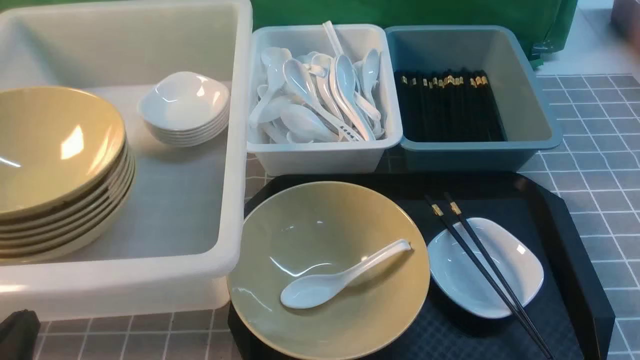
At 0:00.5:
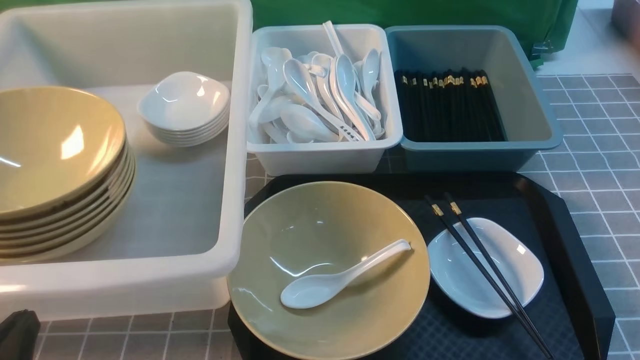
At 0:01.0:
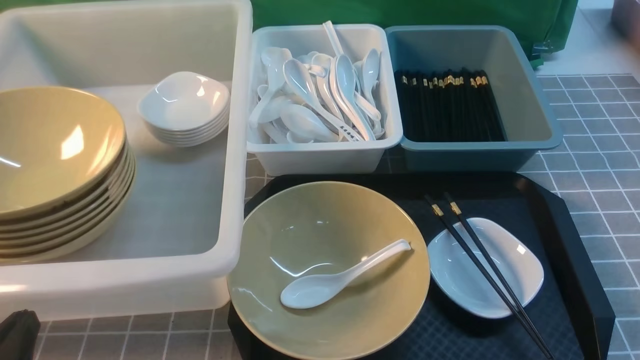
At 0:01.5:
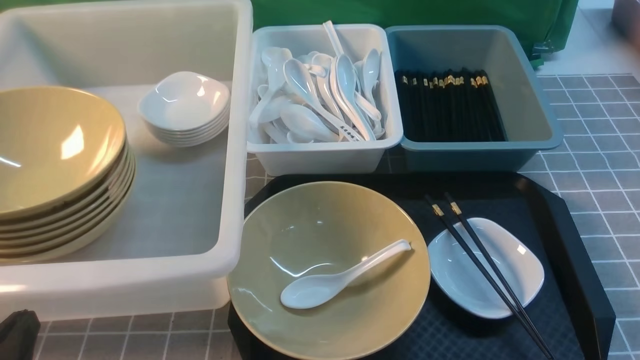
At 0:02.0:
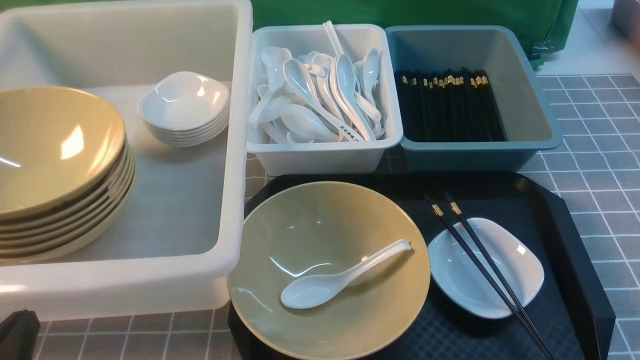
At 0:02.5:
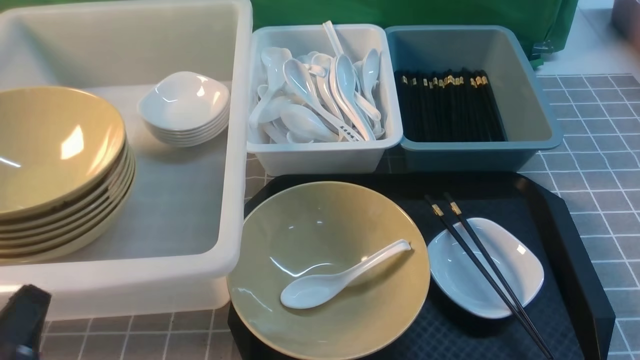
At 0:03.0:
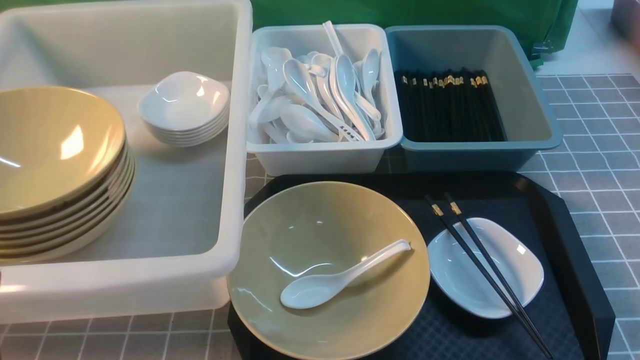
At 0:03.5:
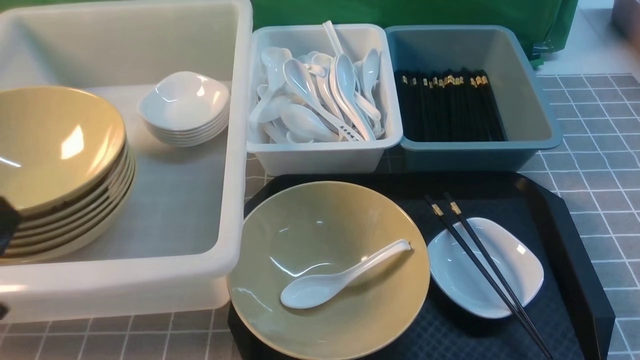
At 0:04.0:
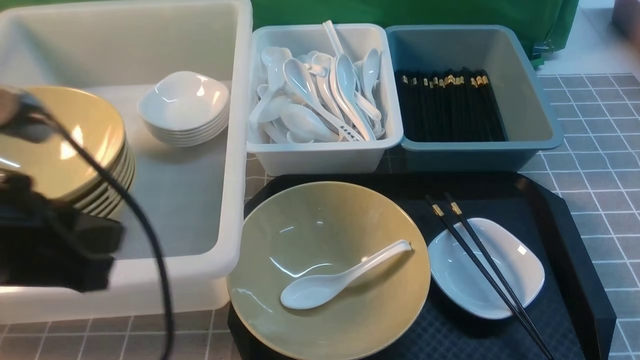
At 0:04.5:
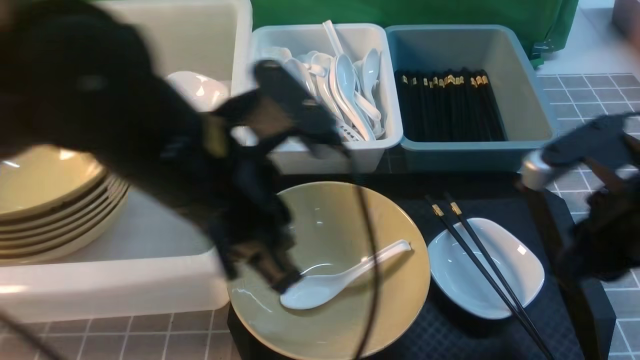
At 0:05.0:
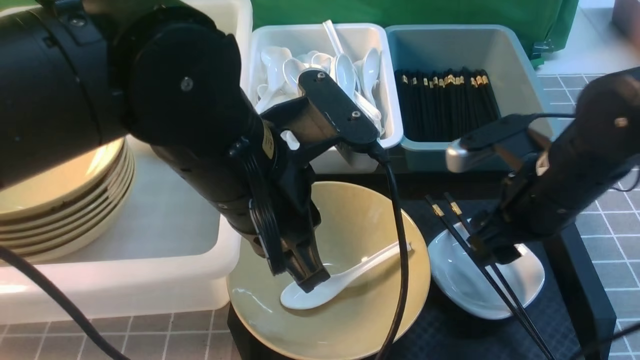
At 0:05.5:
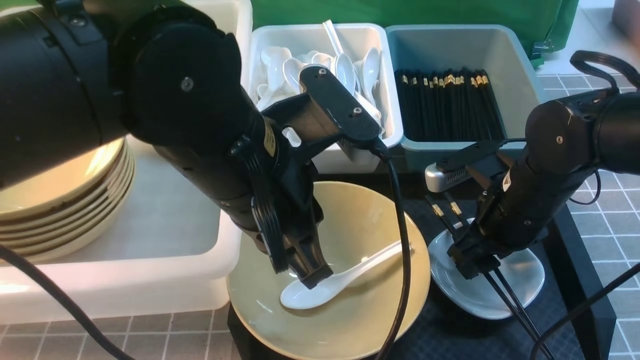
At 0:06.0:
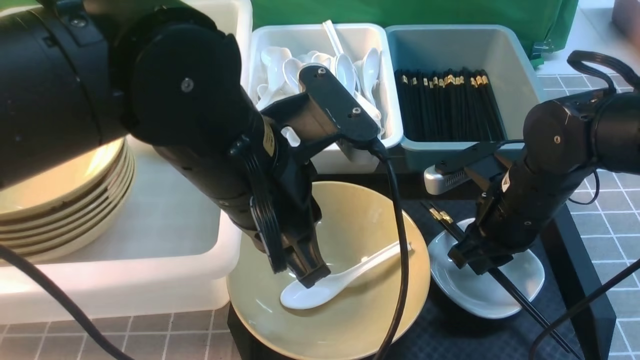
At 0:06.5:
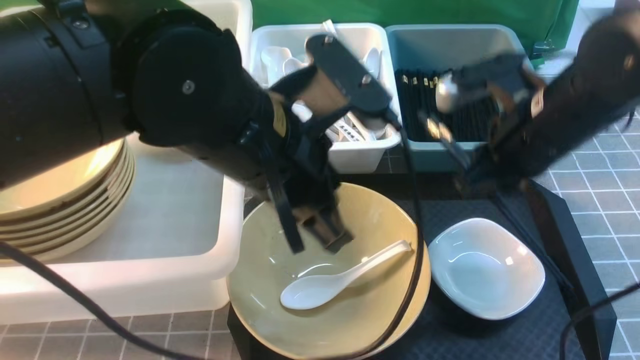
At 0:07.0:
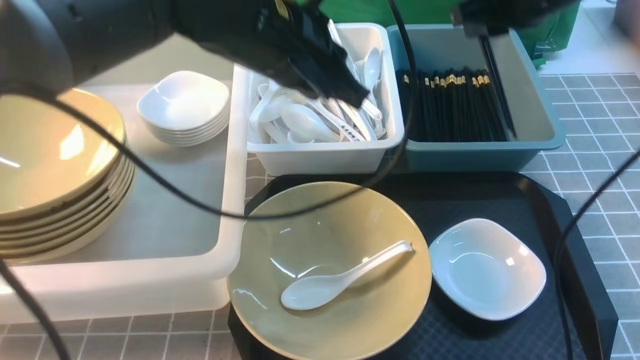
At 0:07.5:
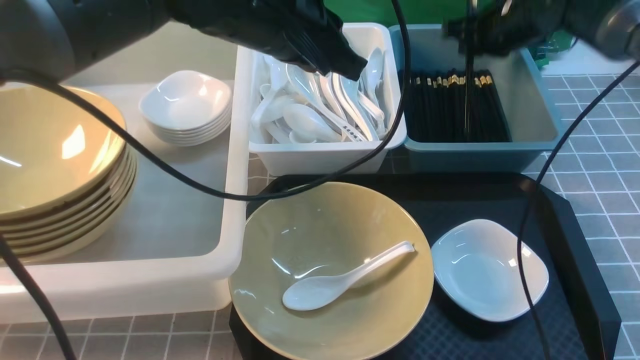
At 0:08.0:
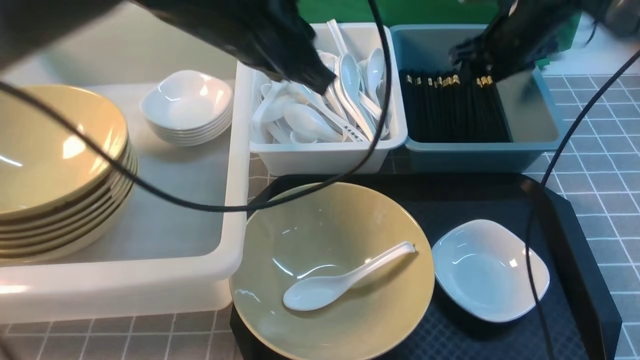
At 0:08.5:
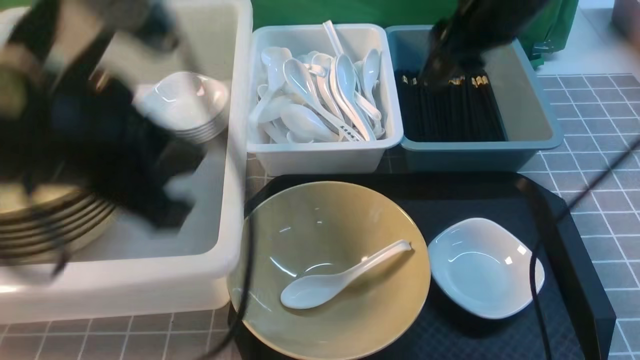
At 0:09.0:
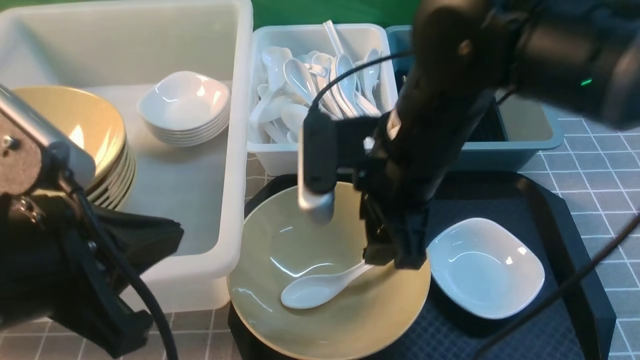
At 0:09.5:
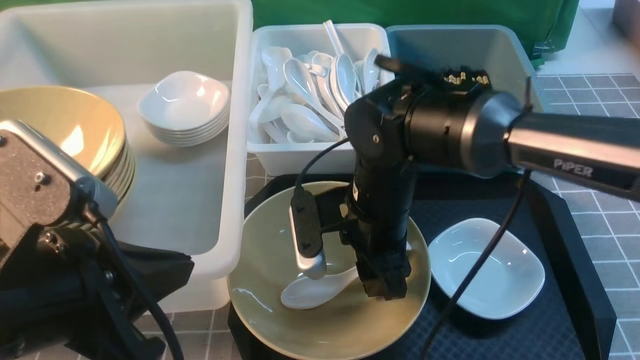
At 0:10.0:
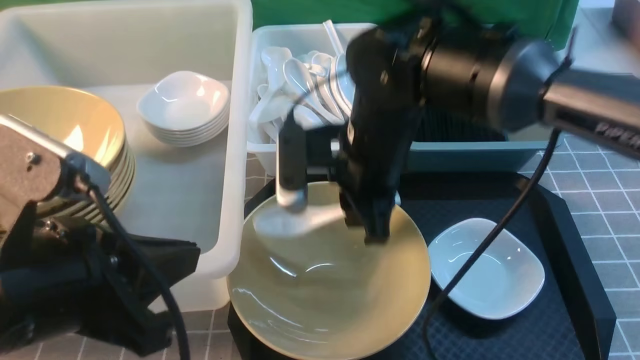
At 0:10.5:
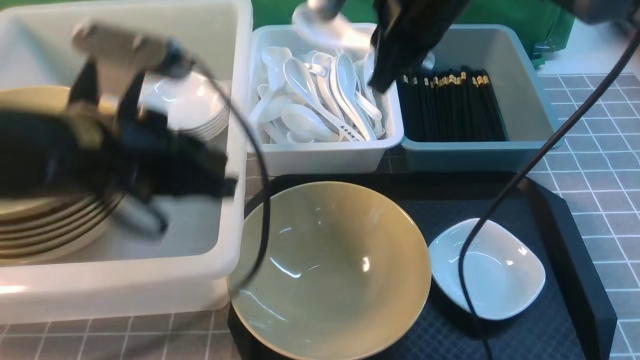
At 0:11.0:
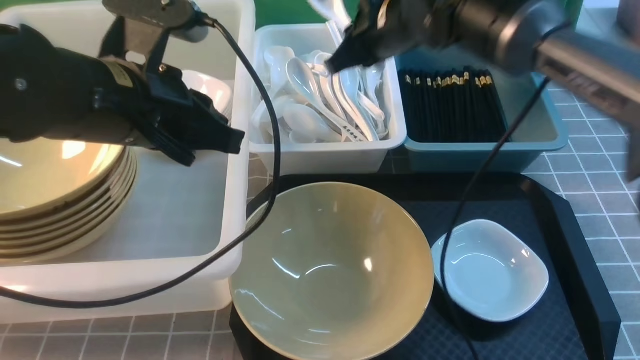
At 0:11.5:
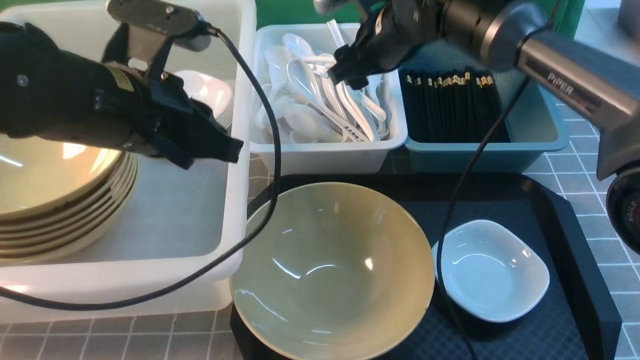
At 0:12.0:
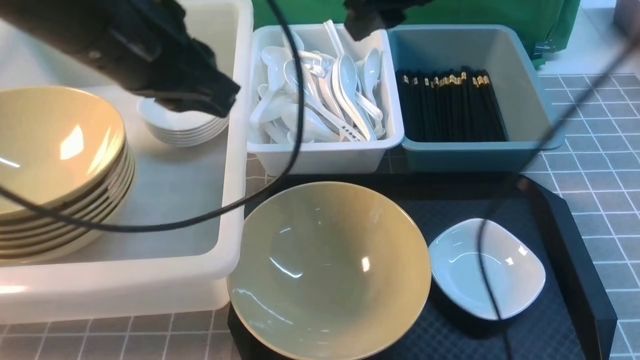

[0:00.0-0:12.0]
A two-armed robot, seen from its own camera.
Task of the whole recording: on grey table put chopsticks spoon bowls plates into blue grey white boxes.
Step, 0:00.0 to 0:06.0: use the right arm to grab the chopsticks.
Step, 0:06.5 to 0:08.0: use the right arm to put the chopsticks into the small storage box on the right.
Step, 0:08.5 to 0:10.0: use the right arm to grab the soup spoon in the middle.
0:02.0 to 0:04.0: The left gripper shifts some 20 cm upward and forward.
0:04.0 to 0:06.0: The right gripper travels forward, downward and to the left by approximately 25 cm, and opens, then closes once more. Meanwhile the left gripper moves to the right and forward, roughly 20 cm.
0:06.0 to 0:08.0: The left gripper travels forward by approximately 10 cm, while the right gripper heads forward, covering approximately 20 cm, and opens.
0:08.0 to 0:10.0: The left gripper heads backward and to the left, covering some 20 cm. Meanwhile the right gripper travels to the left and backward by approximately 25 cm, and closes its fingers.
0:10.0 to 0:12.0: The right gripper shifts about 15 cm upward, forward and to the right, and opens its fingers; the left gripper travels forward and upward by roughly 15 cm.

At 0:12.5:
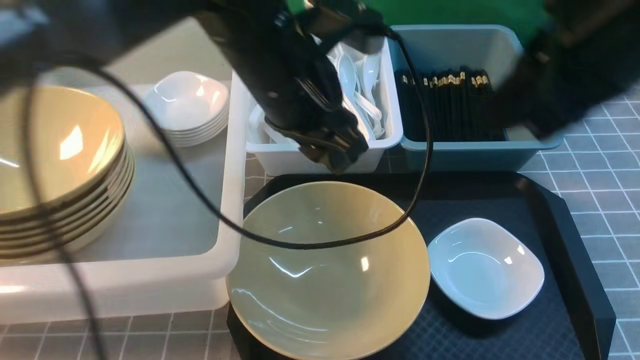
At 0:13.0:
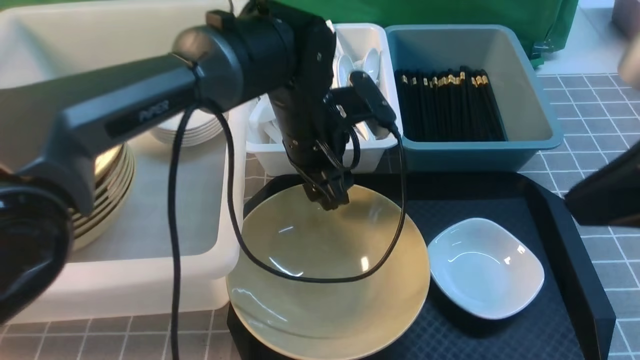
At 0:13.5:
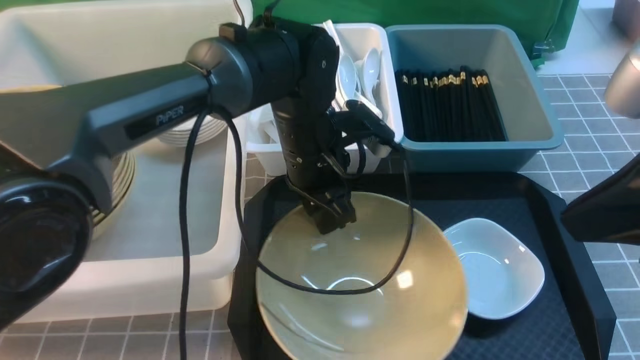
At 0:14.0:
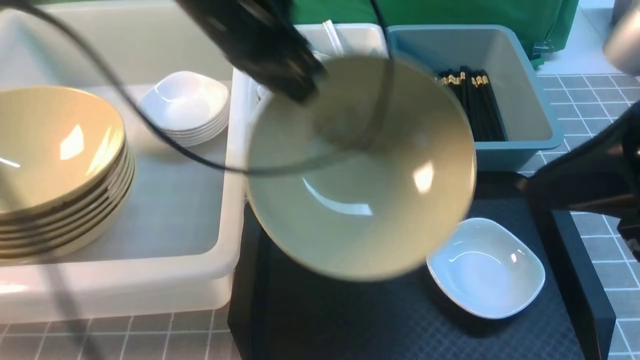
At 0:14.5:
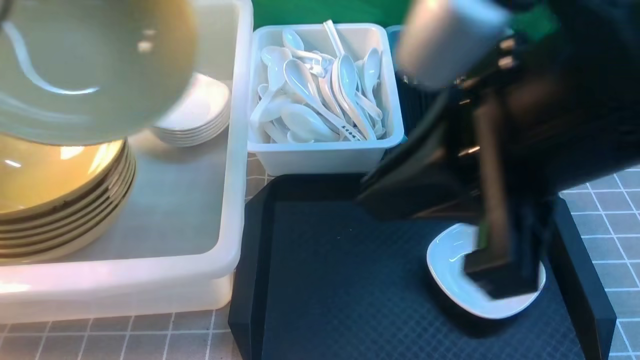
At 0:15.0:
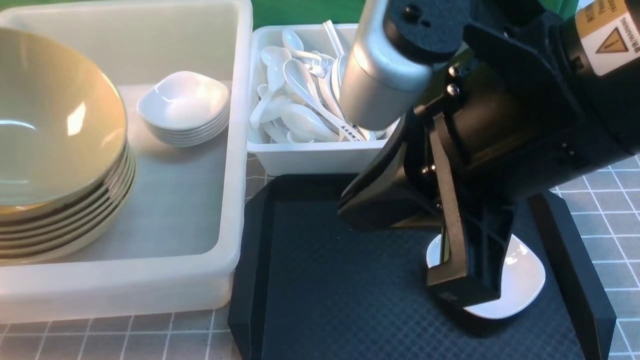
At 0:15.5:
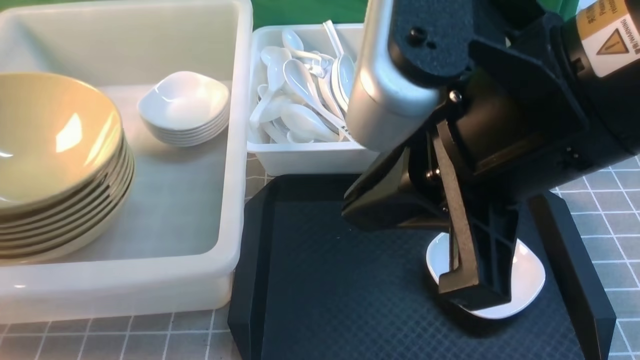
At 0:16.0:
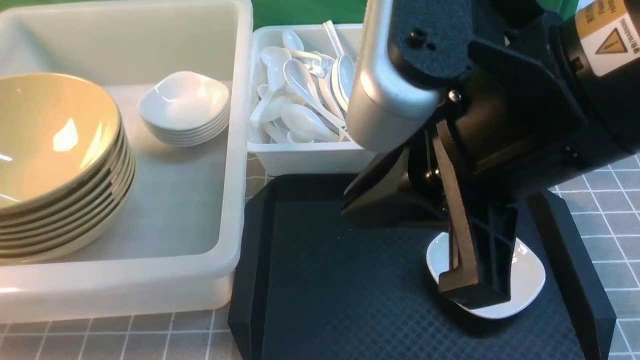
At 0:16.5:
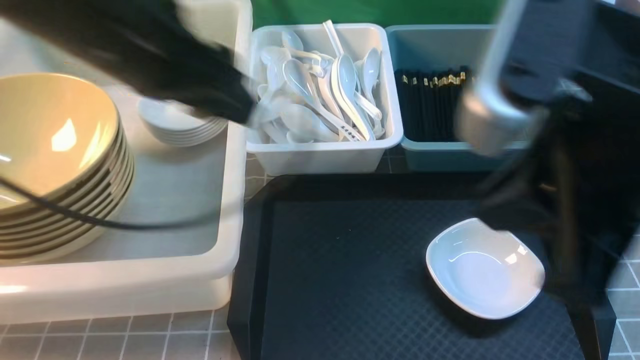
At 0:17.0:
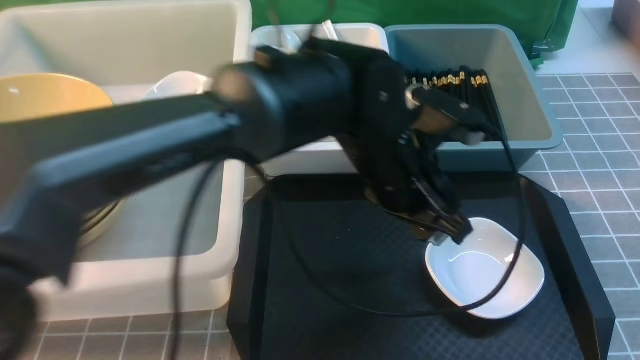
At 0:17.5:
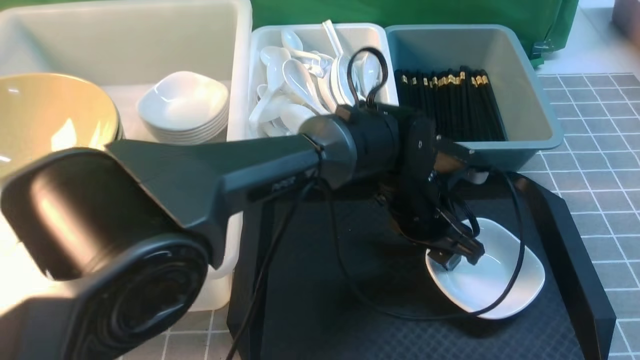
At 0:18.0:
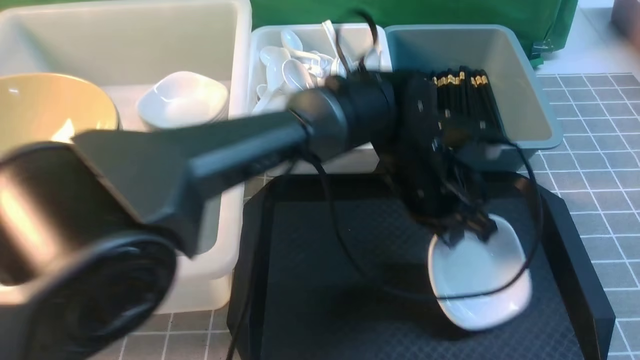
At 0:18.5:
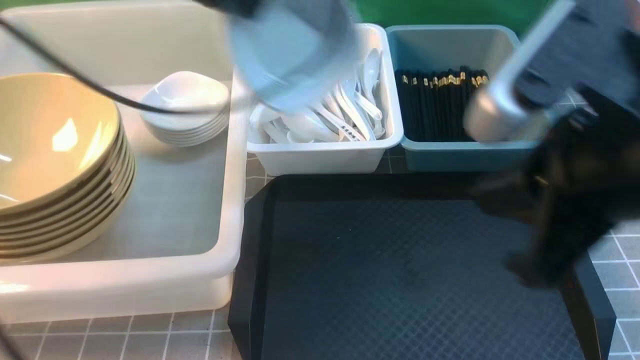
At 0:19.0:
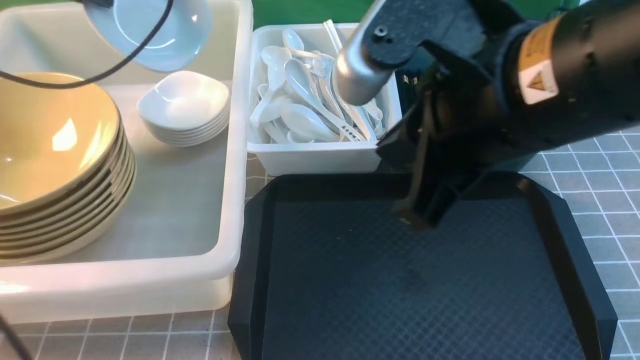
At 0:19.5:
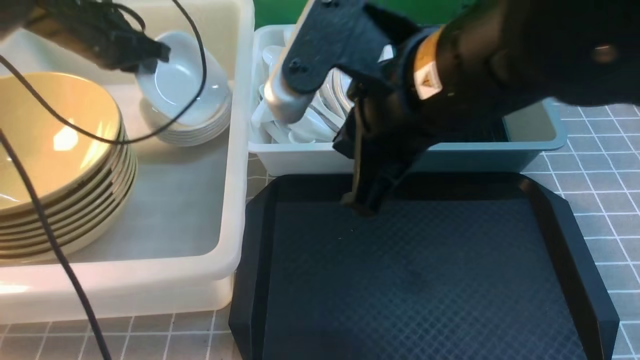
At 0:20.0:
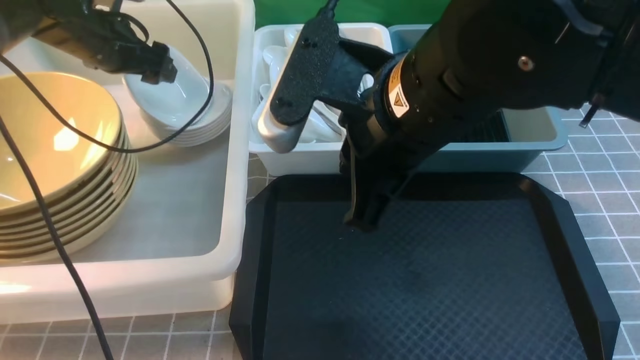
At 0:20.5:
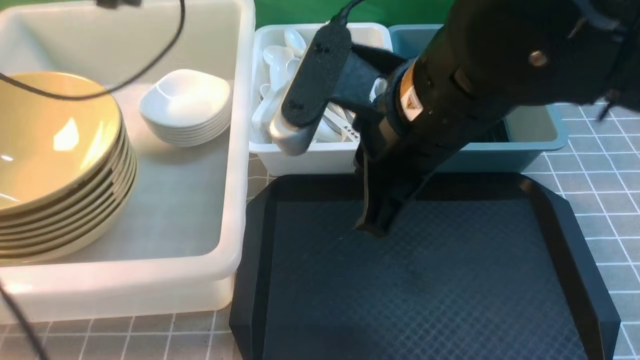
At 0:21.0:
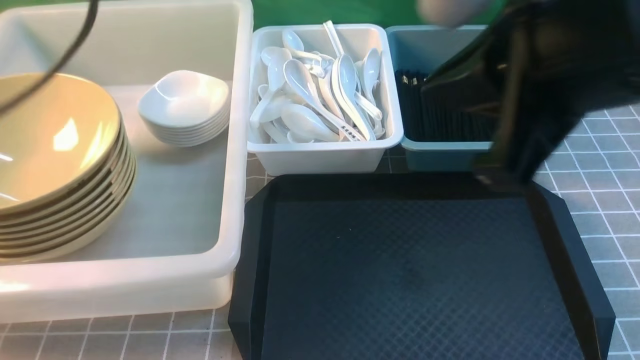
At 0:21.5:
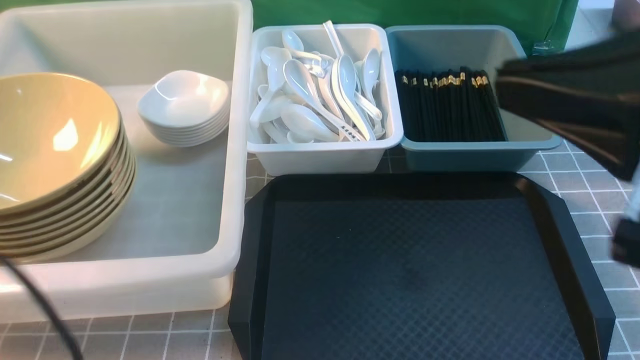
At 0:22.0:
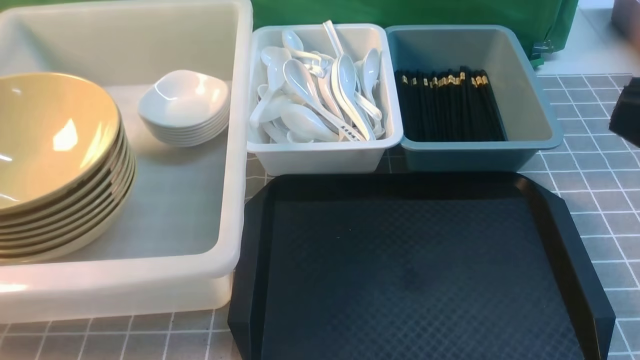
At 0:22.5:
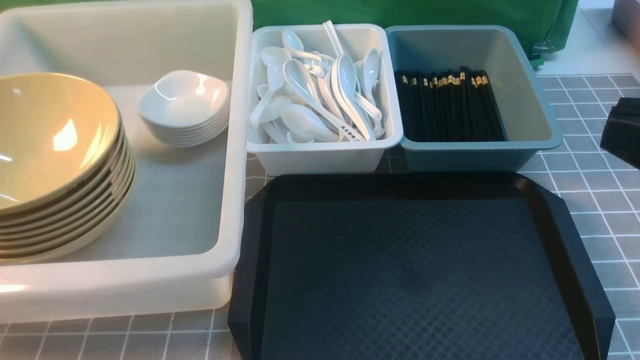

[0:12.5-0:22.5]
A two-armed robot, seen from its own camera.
Task of the whole recording: on grey table put chopsticks spoon bowls plates into blue grey white boxes.
Step, 0:12.5 to 0:13.5: use the left arm to grab the yellow noodle bowl on the left.
Step, 0:14.0 to 0:15.5: use the left arm to put the noodle bowl into the large storage box on the left.
Step, 0:16.5 to 0:18.0: use the left arm to grab the plate.
Step, 0:18.5 to 0:20.0: use the left arm to put the plate into the large storage box on the left.
0:12.5 to 0:14.5: The right gripper shifts about 10 cm backward. Meanwhile the left gripper heads to the left, covering about 25 cm, and opens, then closes again.
0:14.5 to 0:16.5: The left gripper moves to the right, some 15 cm, and opens.
0:16.5 to 0:18.5: The left gripper shifts about 5 cm forward, reaches approximately 25 cm to the right, then returns, and closes, while the right gripper moves roughly 10 cm to the right and comes back.
0:18.5 to 0:20.5: Both grippers travel together to the left and forward, about 15 cm. The left gripper opens its fingers.
0:20.5 to 0:22.5: The left gripper travels backward by some 40 cm, and closes up. Meanwhile the right gripper heads to the right and backward, covering roughly 20 cm.
